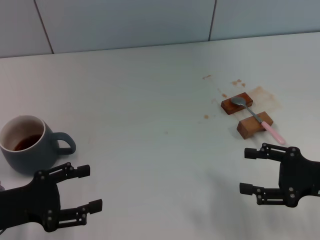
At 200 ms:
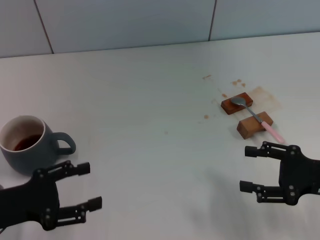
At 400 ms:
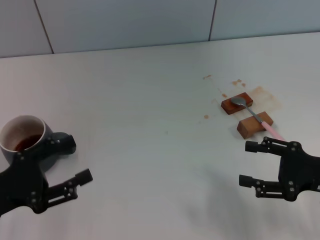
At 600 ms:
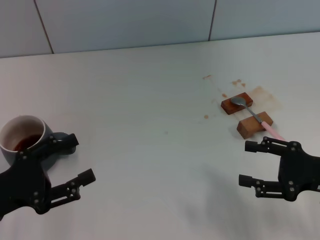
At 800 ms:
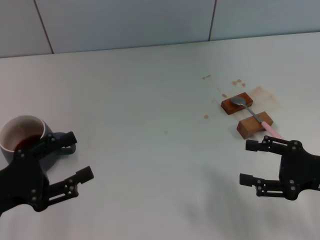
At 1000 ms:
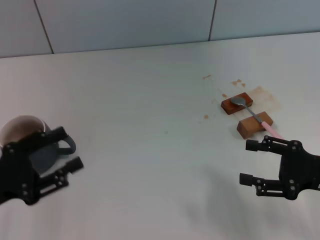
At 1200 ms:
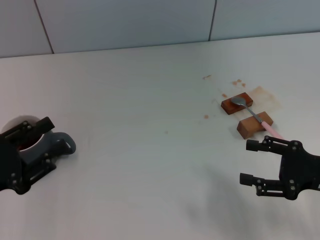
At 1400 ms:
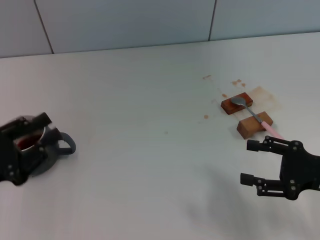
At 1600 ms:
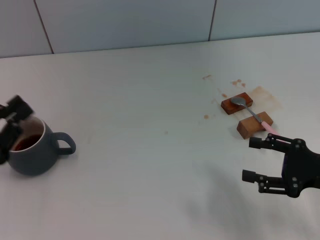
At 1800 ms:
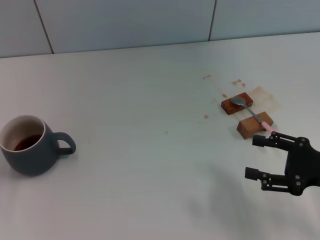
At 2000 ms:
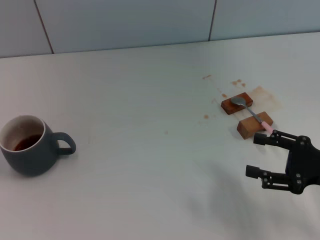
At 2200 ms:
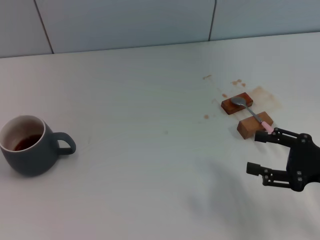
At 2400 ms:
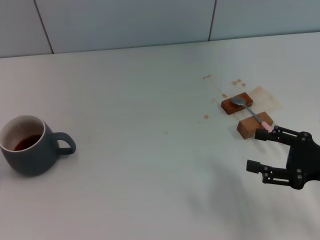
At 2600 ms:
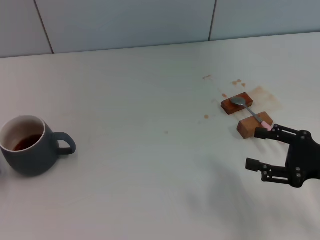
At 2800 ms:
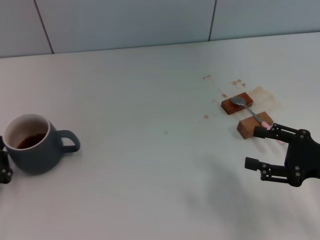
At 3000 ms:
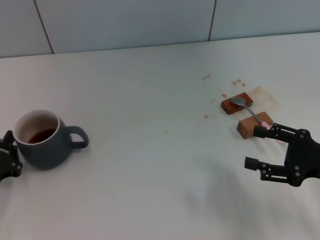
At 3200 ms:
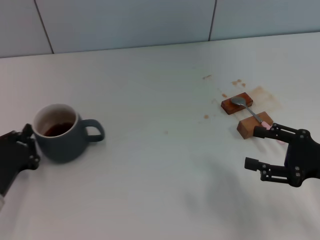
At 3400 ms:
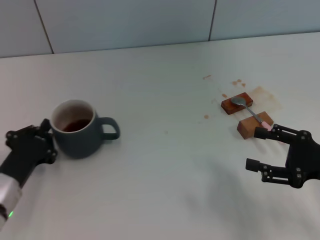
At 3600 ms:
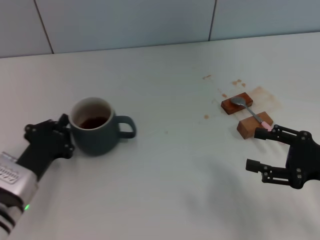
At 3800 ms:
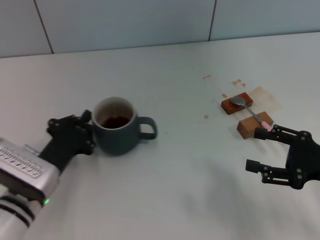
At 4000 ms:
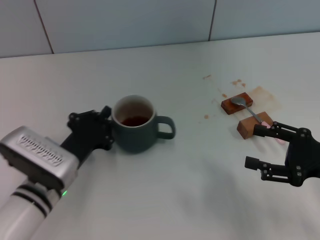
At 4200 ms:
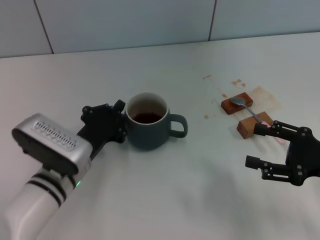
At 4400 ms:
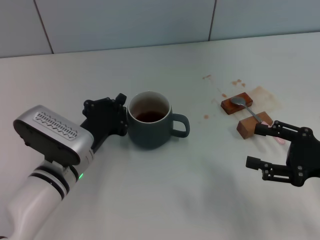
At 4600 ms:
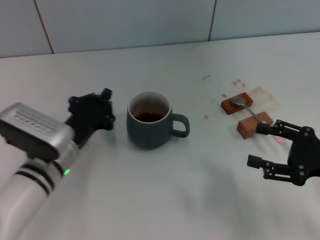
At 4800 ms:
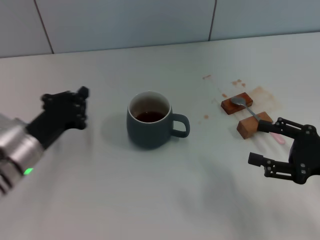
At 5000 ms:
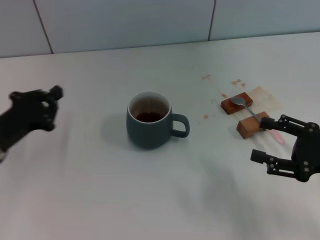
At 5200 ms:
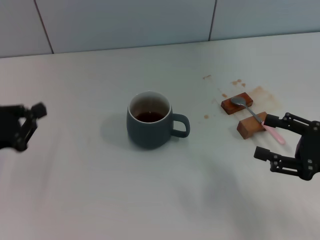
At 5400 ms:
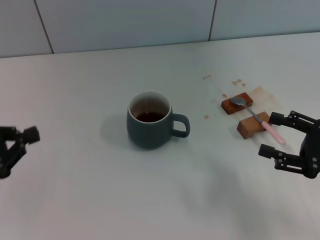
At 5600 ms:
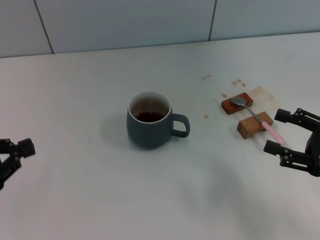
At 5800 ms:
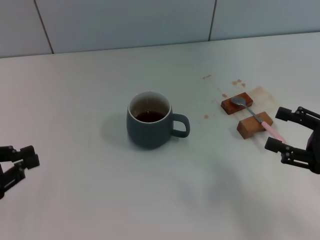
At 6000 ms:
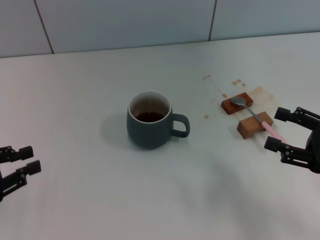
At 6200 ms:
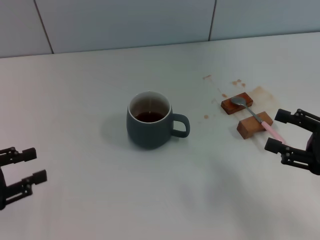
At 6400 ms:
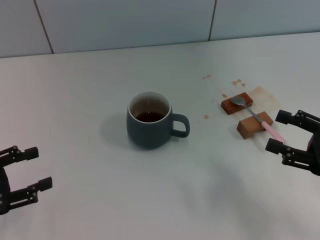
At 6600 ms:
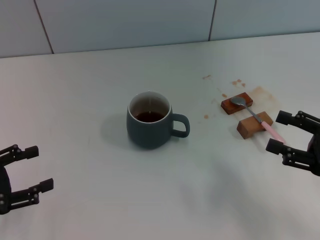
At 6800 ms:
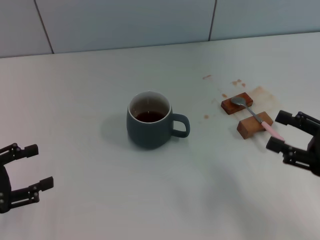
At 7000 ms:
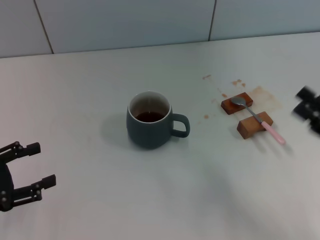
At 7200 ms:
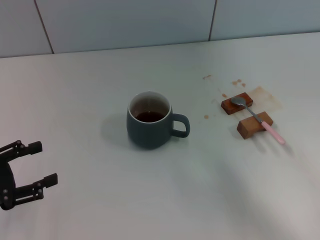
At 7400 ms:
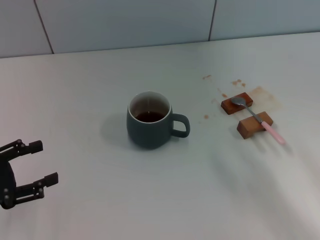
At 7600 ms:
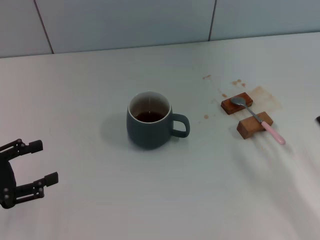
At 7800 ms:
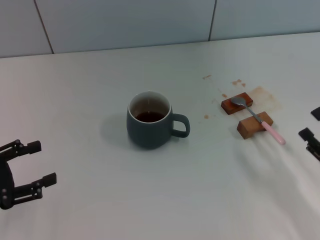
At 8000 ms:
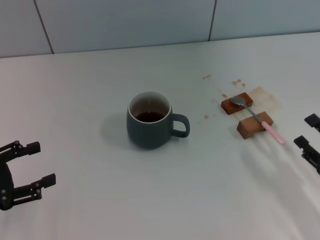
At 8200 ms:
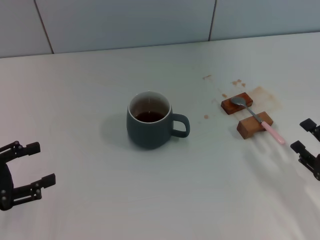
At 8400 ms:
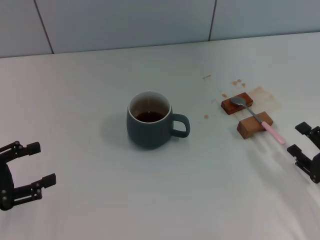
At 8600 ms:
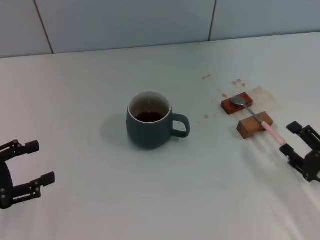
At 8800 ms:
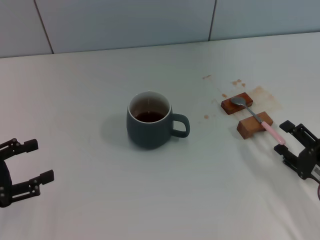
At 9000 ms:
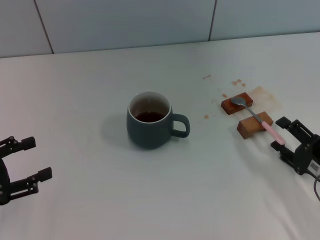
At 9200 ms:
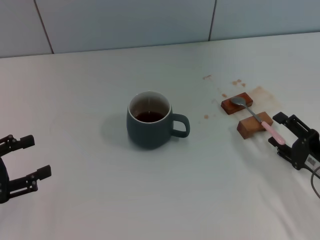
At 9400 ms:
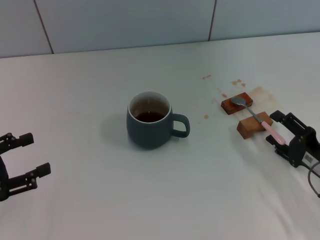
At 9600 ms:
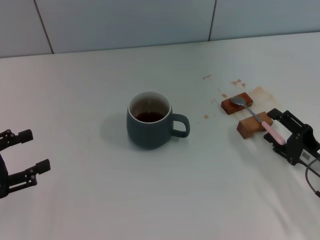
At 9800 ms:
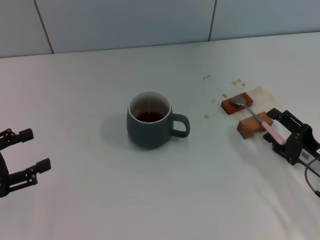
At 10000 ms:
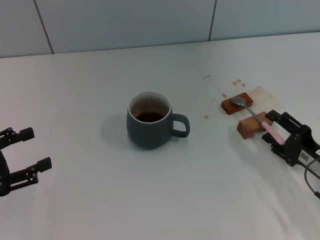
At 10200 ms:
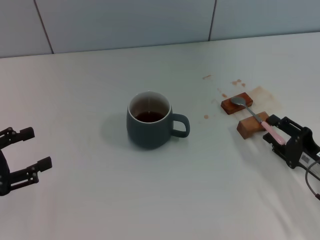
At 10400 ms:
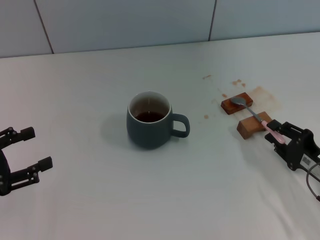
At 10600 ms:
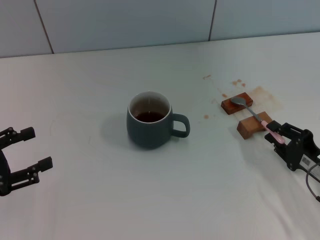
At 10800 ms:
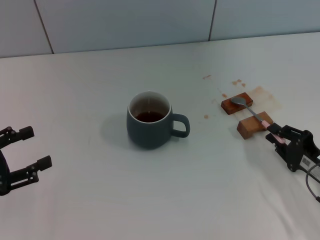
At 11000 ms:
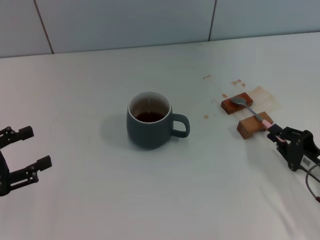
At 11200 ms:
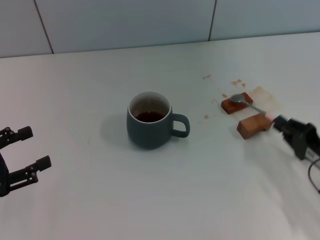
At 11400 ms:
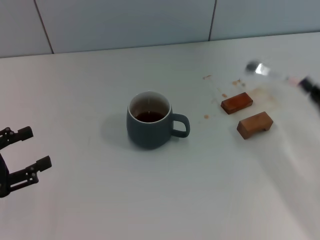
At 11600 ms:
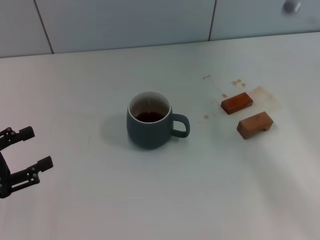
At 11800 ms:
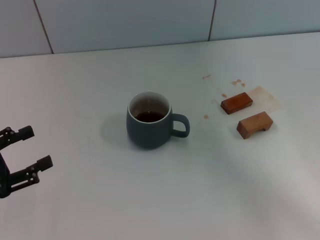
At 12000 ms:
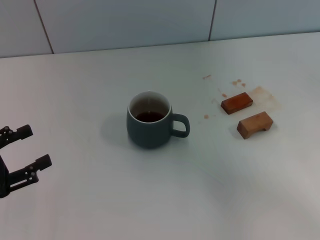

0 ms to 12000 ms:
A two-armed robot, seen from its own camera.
Task of the whole recording: Move the grey cup to the center, lift the pink spoon, stir it three times in the cup, and put the spoon into the cup.
Step, 0 ms to 3400 ms: Move the cup with coffee to the center of view with the left gripper.
Step, 3600 ms to 11600 ms: Pick up the spoon with the right gripper.
0 ms to 1600 ms: The left gripper closes.
1600 ms to 3000 ms: The left gripper goes roughly 10 cm downward.
3000 ms to 4400 ms: The left gripper shifts approximately 15 cm to the right and forward.
4400 ms to 6000 ms: The left gripper heads to the left, covering some 20 cm.
6000 ms to 7600 ms: The right gripper heads downward and backward, covering approximately 10 cm; the left gripper opens its fingers.
7600 ms to 9000 ms: The grippers make only small movements.
9000 ms to 10400 ms: The grippers make only small movements.
10400 ms to 12000 ms: The right gripper moves upward, about 15 cm, and closes.

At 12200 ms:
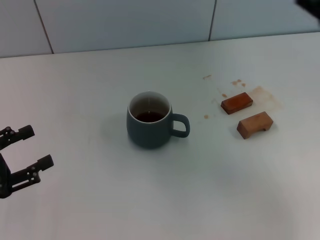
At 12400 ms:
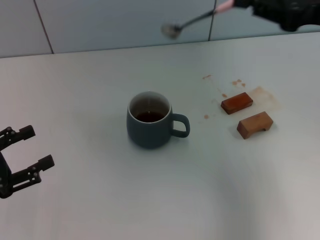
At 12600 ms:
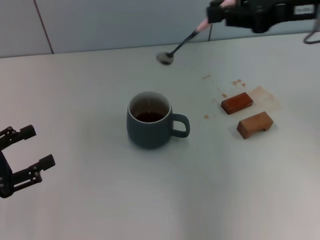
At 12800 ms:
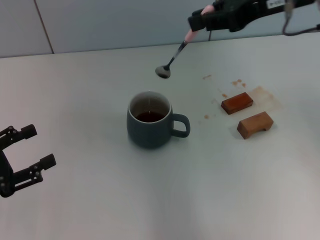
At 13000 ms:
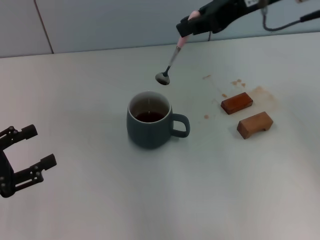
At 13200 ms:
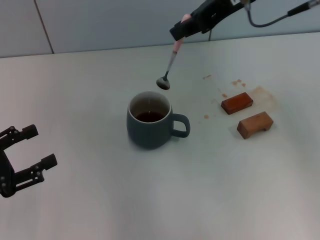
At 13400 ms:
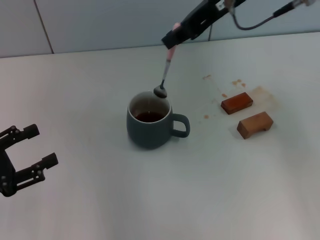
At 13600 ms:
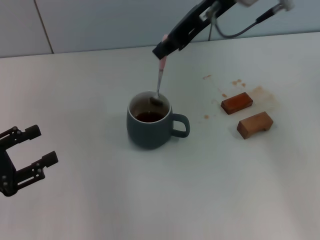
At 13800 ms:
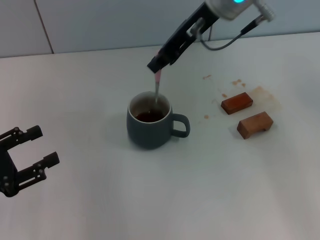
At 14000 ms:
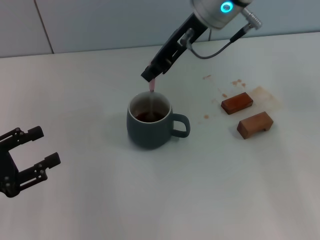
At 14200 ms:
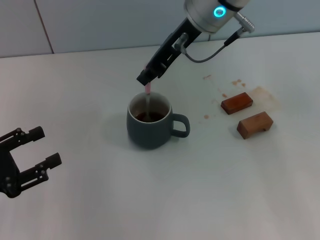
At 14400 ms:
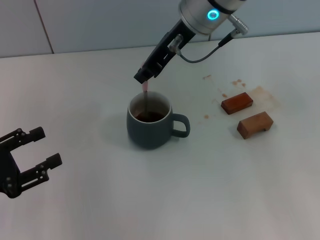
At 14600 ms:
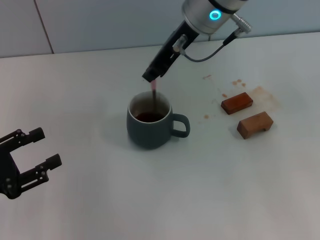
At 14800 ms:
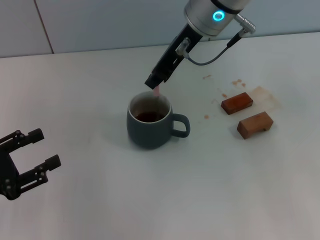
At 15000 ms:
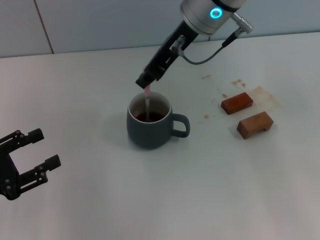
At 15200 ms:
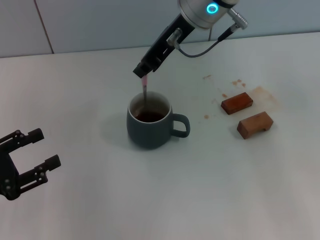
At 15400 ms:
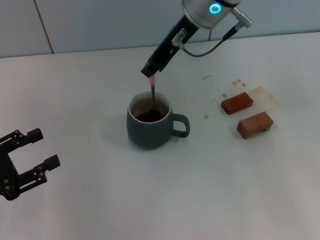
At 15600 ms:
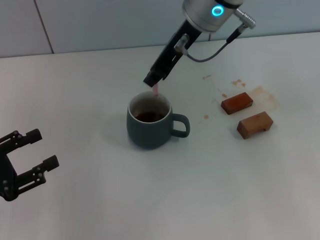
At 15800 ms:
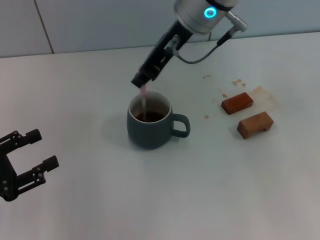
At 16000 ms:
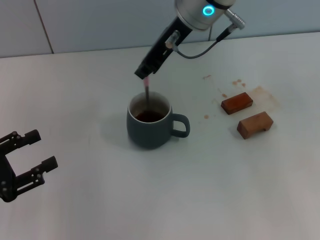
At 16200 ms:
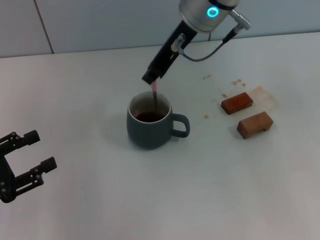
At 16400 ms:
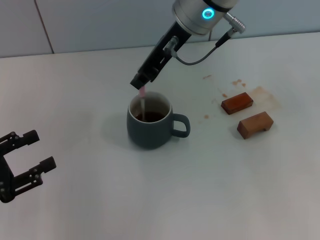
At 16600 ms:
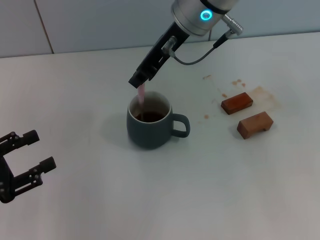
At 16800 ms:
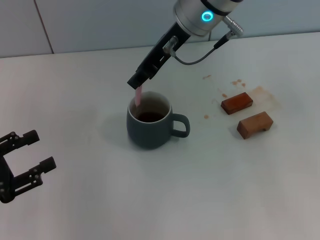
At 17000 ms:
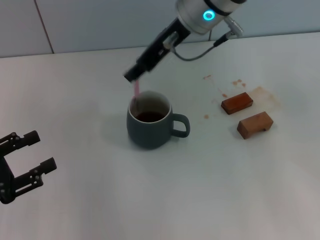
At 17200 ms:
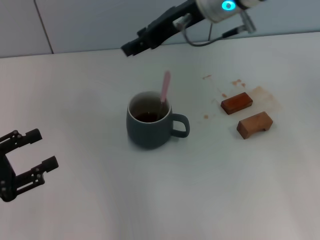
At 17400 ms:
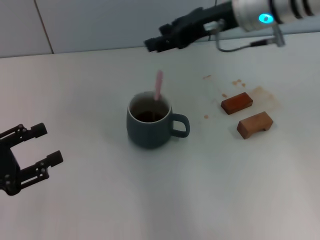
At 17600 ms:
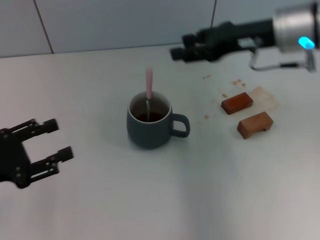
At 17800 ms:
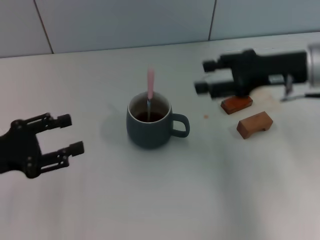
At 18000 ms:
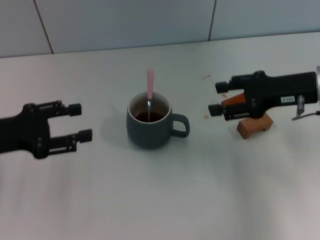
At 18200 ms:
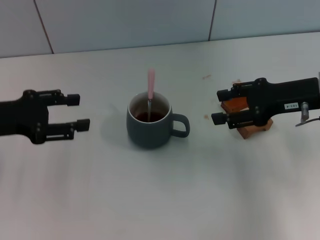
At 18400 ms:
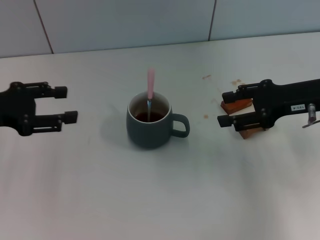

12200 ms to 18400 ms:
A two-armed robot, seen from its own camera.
Task of the whole recording: Move the grey cup to the center, lift the pink spoon, stir it three times in the cup, and put the spoon into the cup.
Step, 12200 ms to 15200 ms: Stir the coffee in the cup with the right gripper.
12200 ms to 13800 ms: The right gripper moves to the left and forward, roughly 25 cm.
13800 ms to 16800 ms: There are only small adjustments of the grippers.
16800 ms to 18400 ms: The left gripper moves forward and upward, about 15 cm. The right gripper shifts about 25 cm to the right and downward, and opens.
